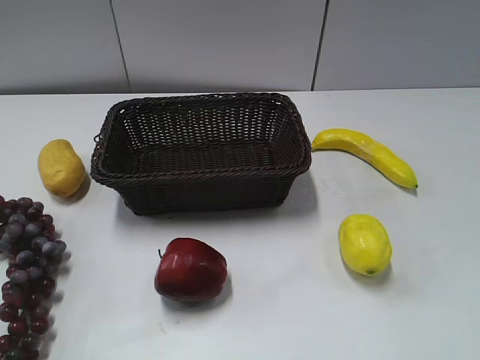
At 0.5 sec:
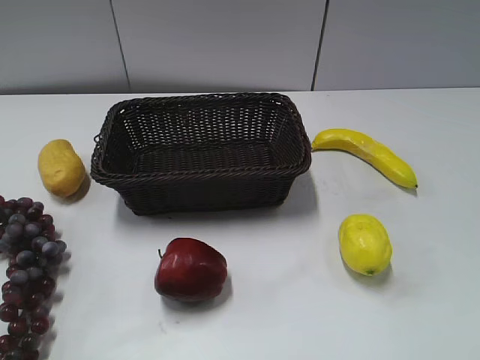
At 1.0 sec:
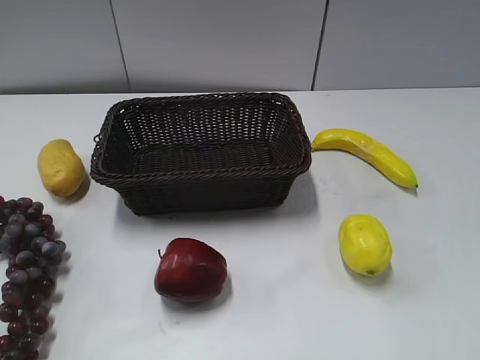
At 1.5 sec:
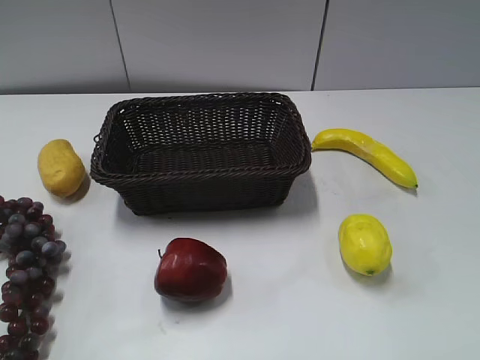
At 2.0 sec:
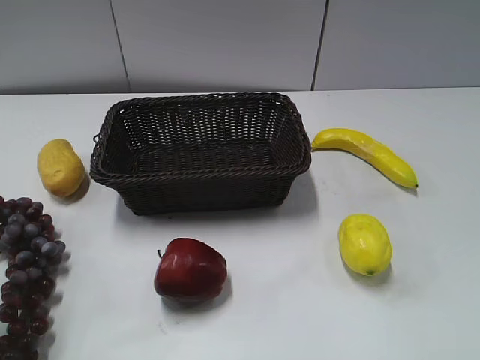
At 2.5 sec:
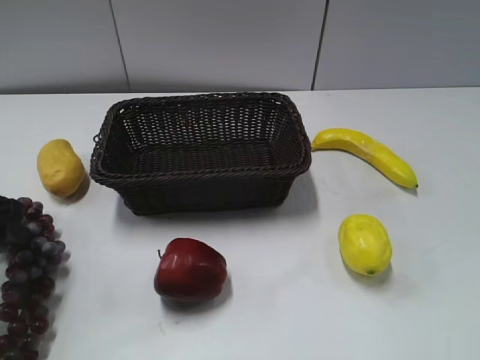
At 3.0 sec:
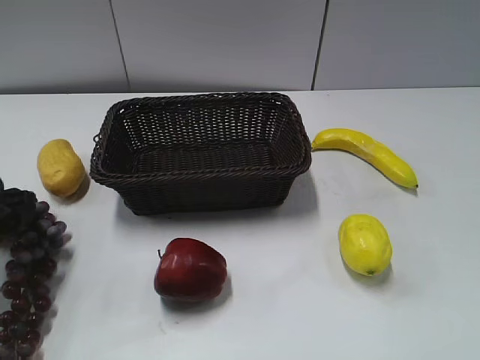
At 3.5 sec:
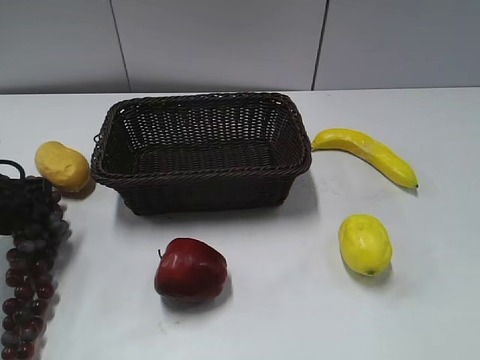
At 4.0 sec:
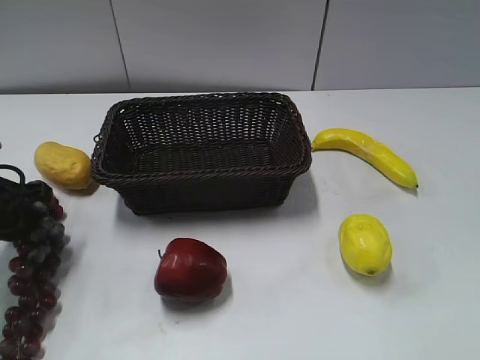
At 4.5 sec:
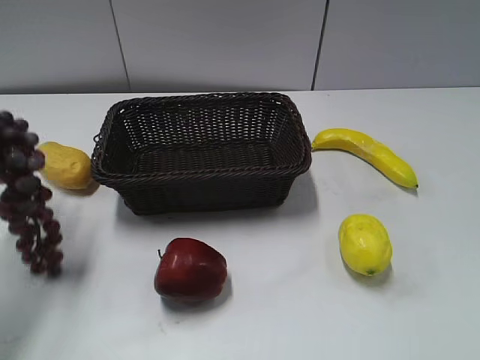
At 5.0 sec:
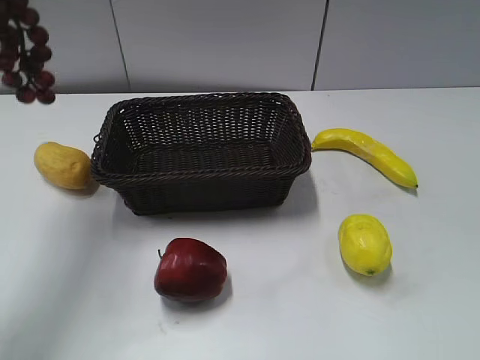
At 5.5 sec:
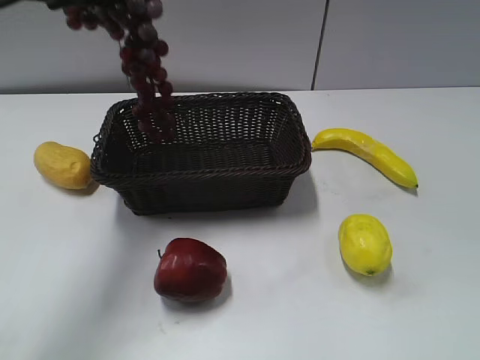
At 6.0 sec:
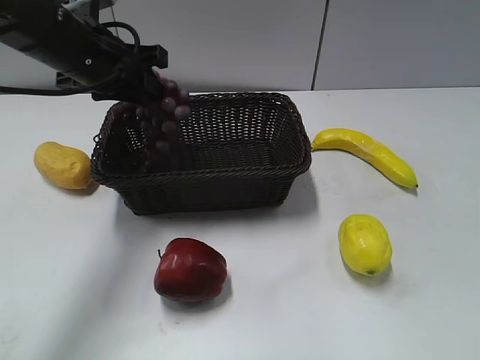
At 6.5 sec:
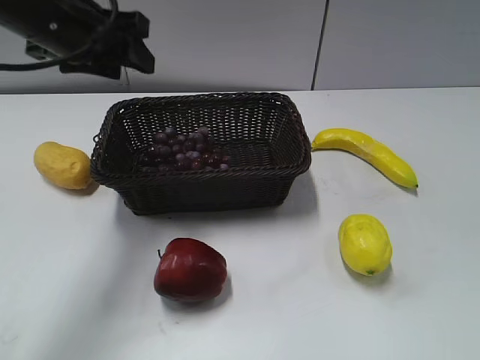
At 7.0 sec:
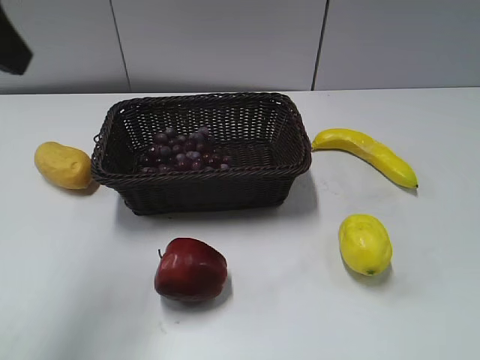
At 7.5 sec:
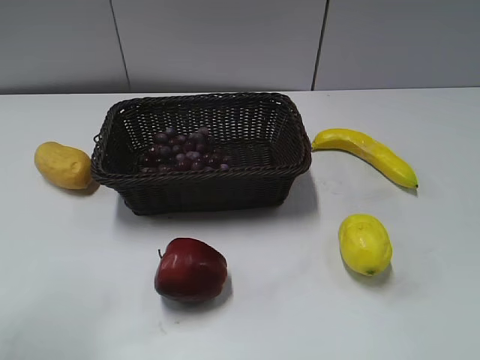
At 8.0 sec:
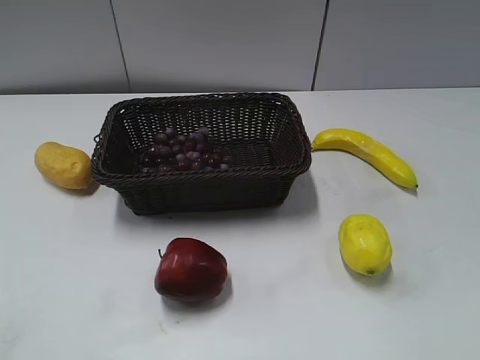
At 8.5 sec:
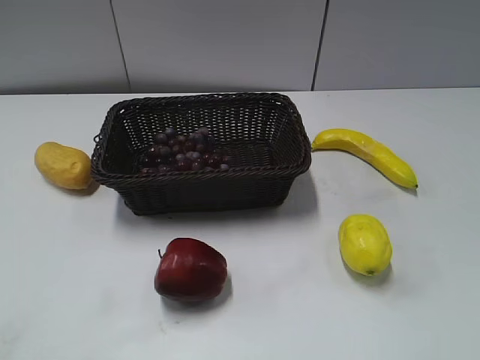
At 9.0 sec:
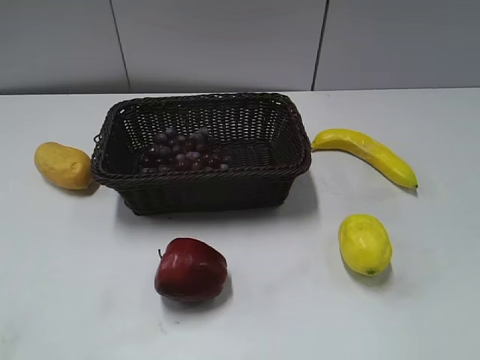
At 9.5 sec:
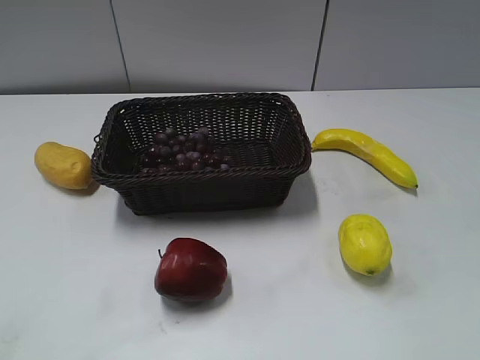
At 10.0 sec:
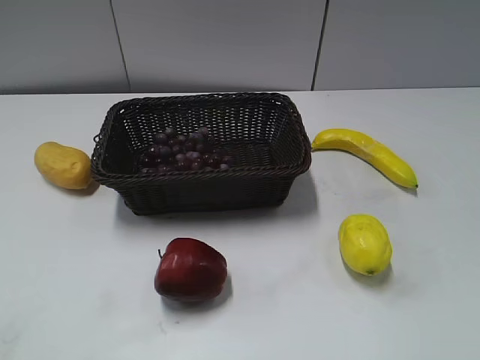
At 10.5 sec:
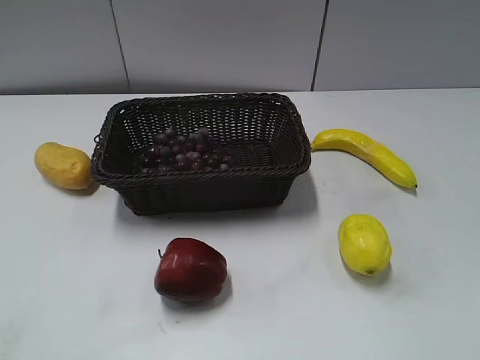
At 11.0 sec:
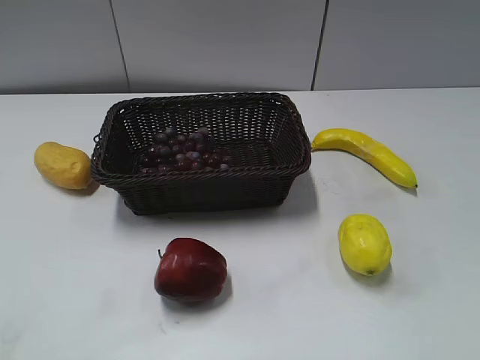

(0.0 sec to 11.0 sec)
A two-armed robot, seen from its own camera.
Step, 2.5 sec - 4.0 sec: Grasp the grape with left gripper.
Step, 4.5 sec - 6.0 sec: Place the grape in the basket with left gripper.
2.0 sec - 3.5 sec: The left gripper goes roughly 15 cm forward and downward.
3.5 sec - 5.5 sec: The left gripper is displaced upward and to the right by approximately 25 cm, and closes up.
5.5 sec - 7.5 sec: The left gripper is displaced backward and to the left by approximately 20 cm, and opens.
